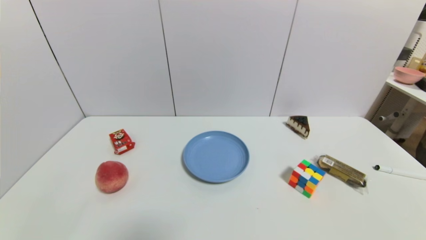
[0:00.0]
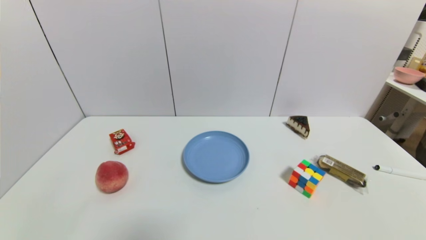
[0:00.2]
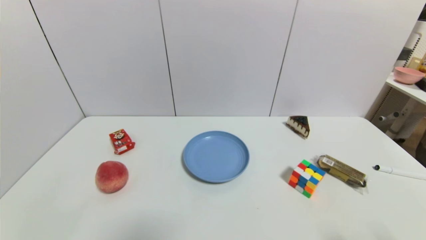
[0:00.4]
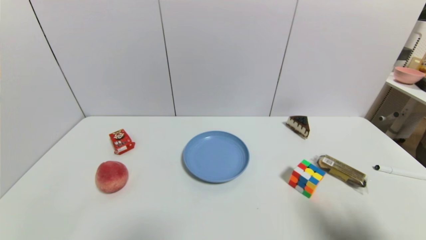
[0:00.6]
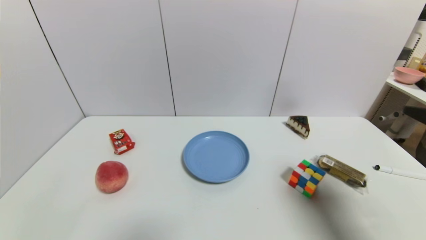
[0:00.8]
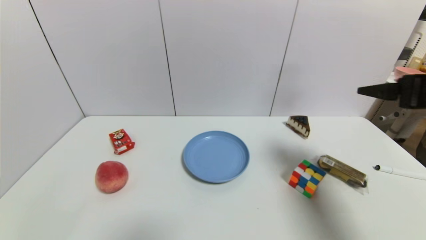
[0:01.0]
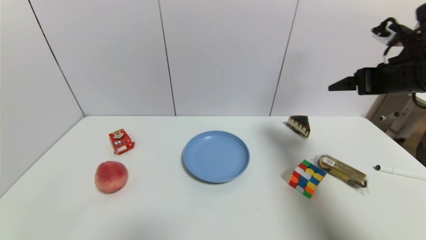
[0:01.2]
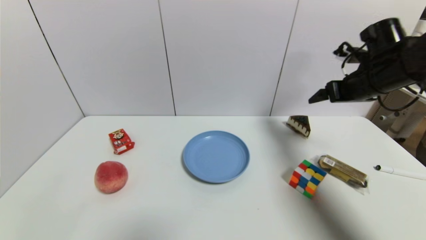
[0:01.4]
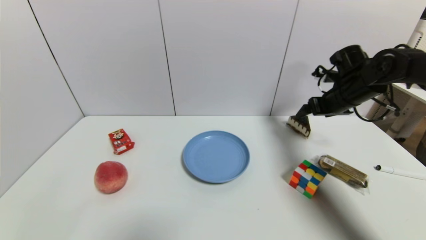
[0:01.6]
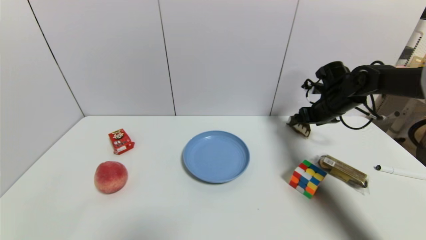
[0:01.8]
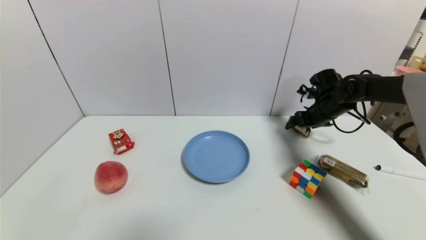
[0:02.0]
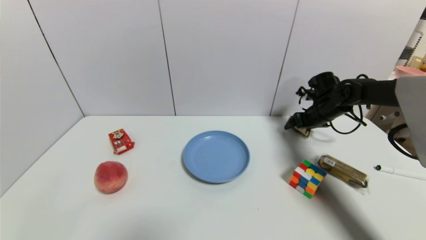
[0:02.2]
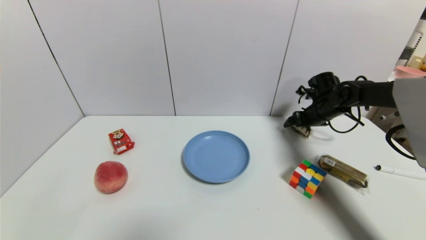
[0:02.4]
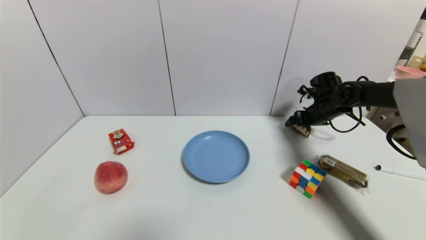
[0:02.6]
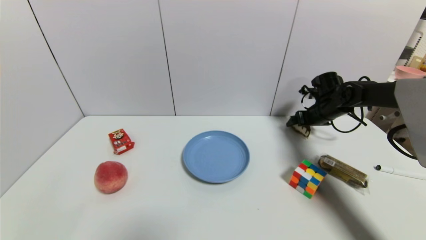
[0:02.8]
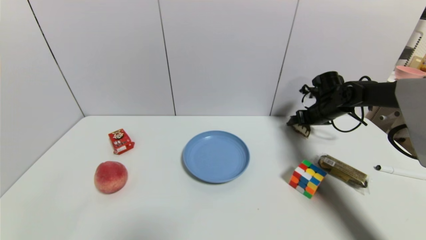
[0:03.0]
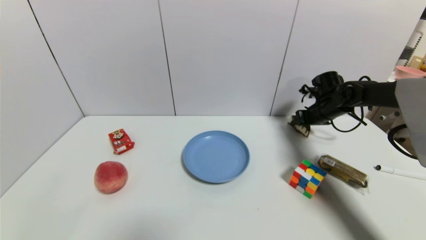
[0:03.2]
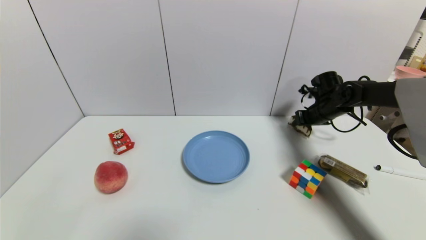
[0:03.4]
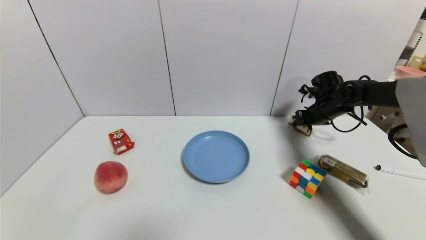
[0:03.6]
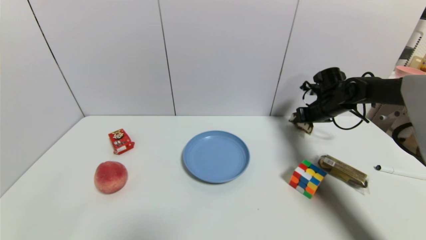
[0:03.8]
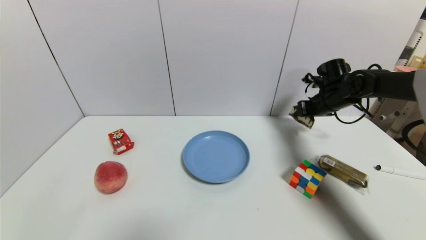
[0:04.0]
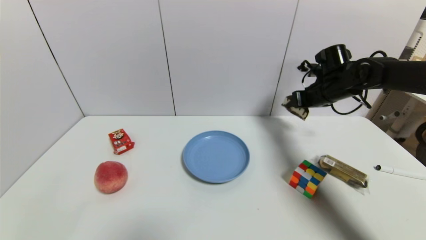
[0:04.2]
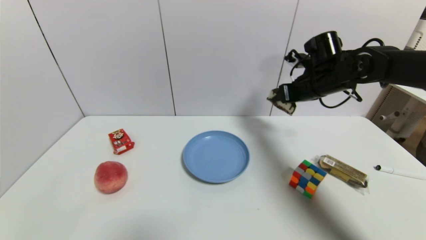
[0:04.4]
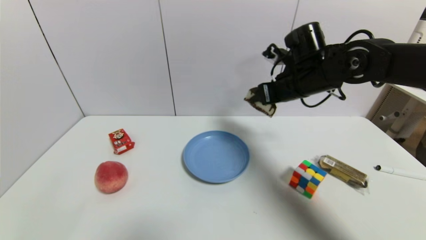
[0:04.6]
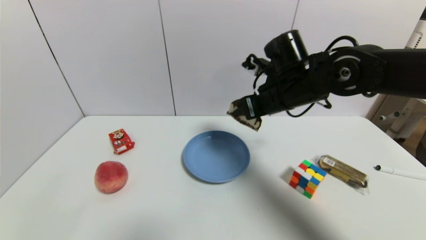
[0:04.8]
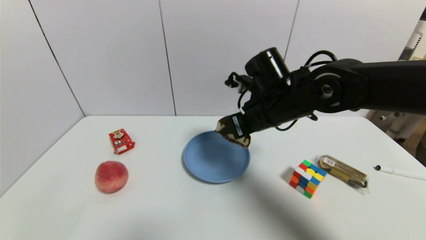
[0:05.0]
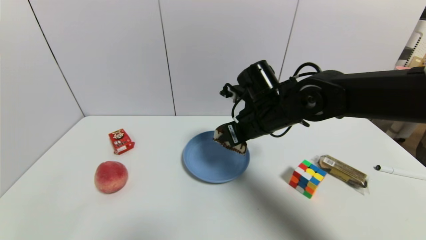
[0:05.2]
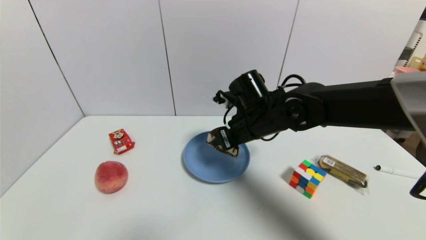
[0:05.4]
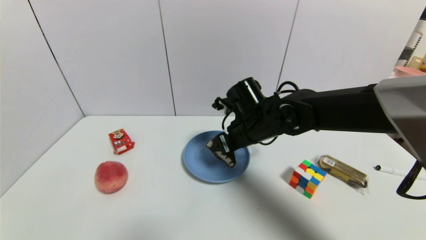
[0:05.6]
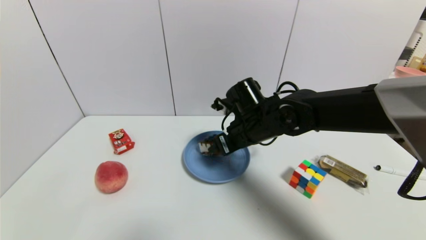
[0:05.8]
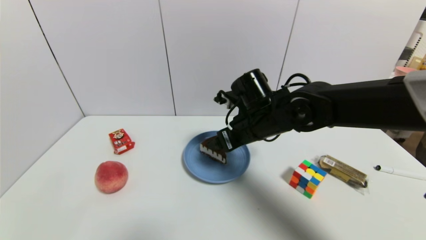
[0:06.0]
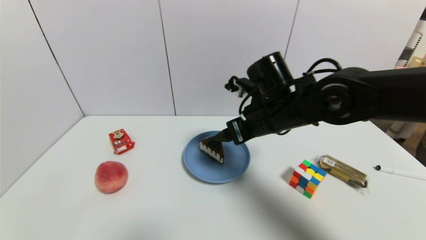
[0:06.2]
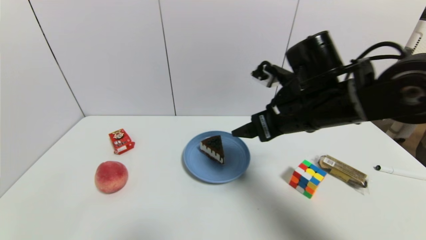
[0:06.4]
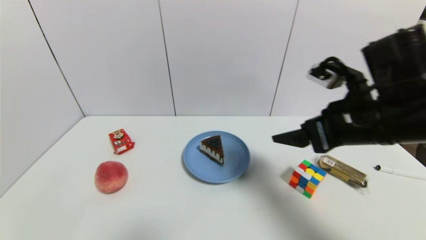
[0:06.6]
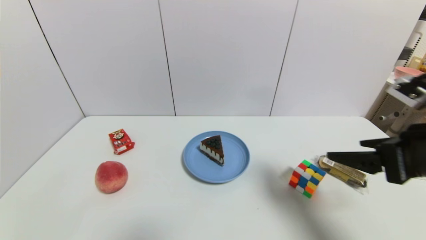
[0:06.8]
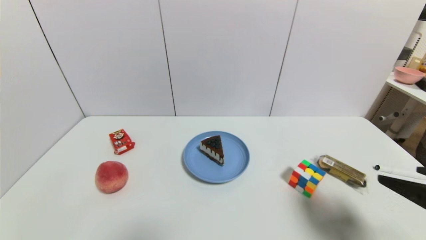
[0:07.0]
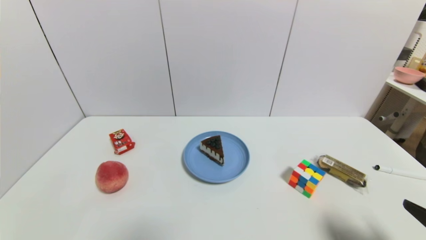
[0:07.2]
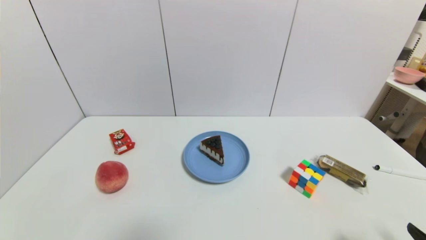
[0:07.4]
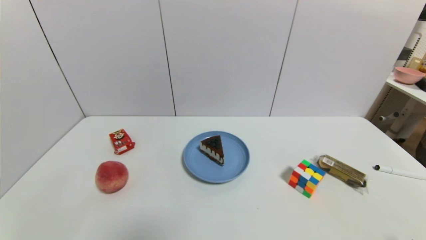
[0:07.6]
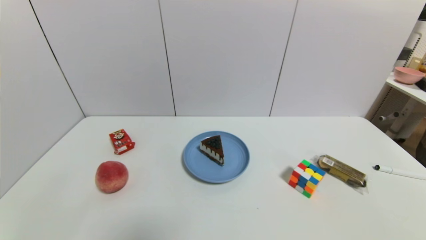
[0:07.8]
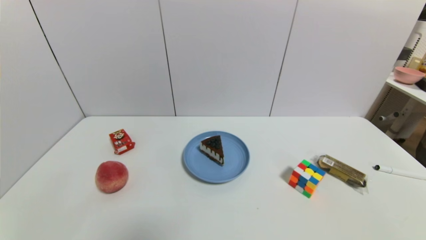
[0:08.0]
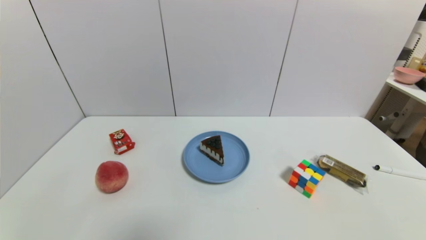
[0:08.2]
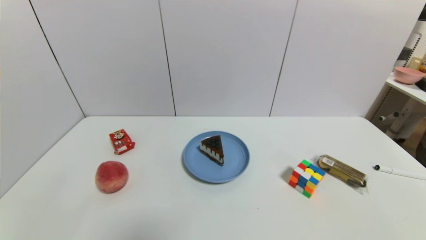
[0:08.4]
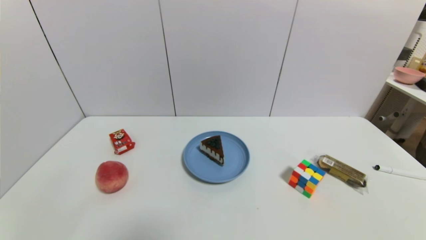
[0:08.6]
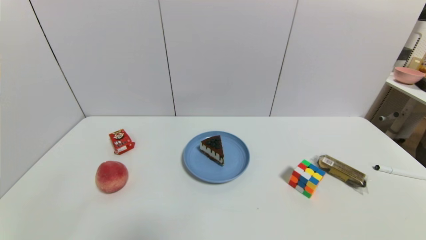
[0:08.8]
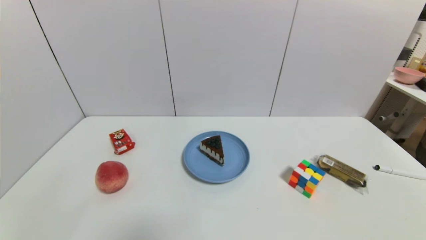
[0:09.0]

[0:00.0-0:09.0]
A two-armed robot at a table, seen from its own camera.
Task of the whole recording: use a gripper to pick the target object and place on the blue plate.
Step, 0:00.0 to 0:03.4: Grasp the chocolate cake with the right gripper.
Step, 0:03.6 to 0:05.8: Place the chocolate cake on the blue plate with the right gripper.
0:00.0 to 0:01.6: The right gripper travels forward by some 40 cm.
0:01.6 to 0:03.0: The right gripper travels downward and forward by some 10 cm.
0:03.0 to 0:04.4: The right gripper travels upward, to the left and backward by some 15 cm, and closes its fingers.
0:04.4 to 0:06.0: The right gripper travels to the left and backward by approximately 15 cm, and opens.
0:06.0 to 0:07.6: The right gripper travels backward and to the right by roughly 40 cm.
